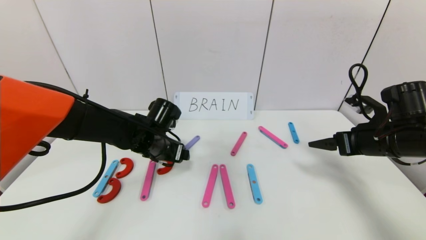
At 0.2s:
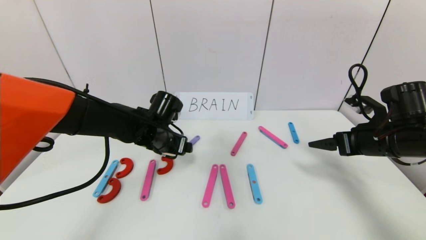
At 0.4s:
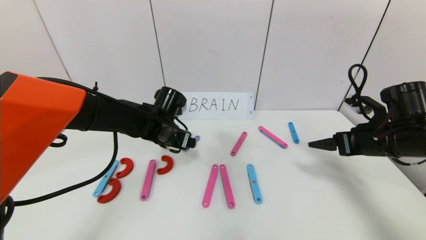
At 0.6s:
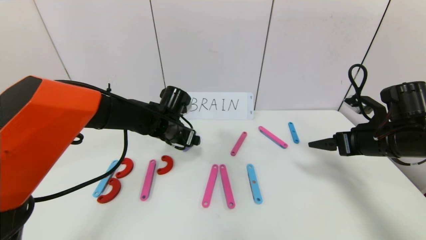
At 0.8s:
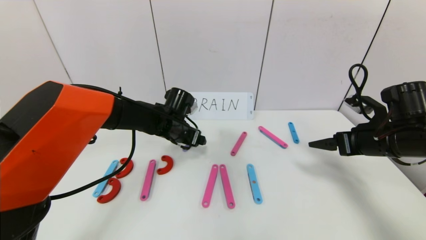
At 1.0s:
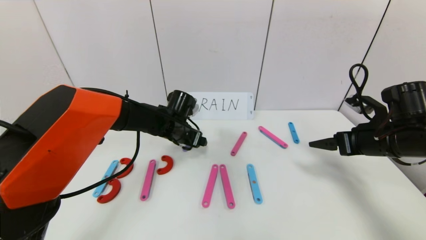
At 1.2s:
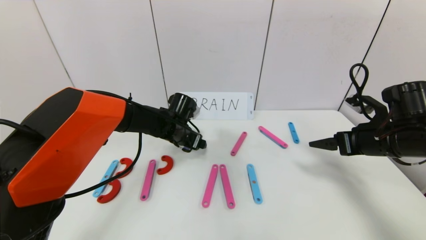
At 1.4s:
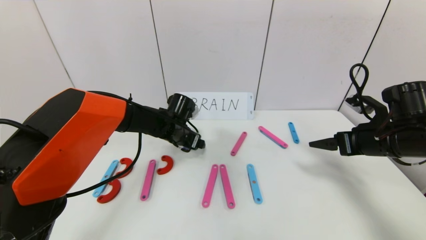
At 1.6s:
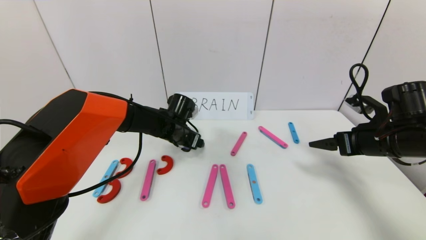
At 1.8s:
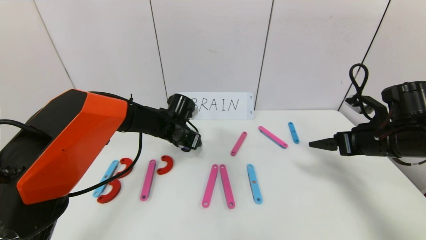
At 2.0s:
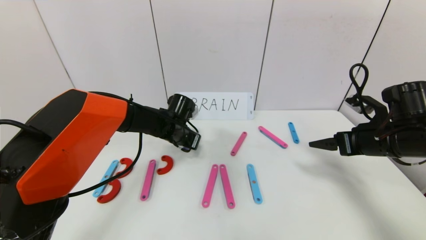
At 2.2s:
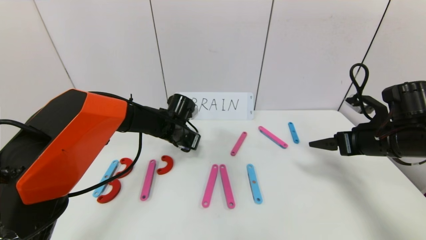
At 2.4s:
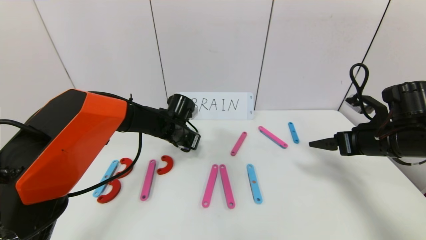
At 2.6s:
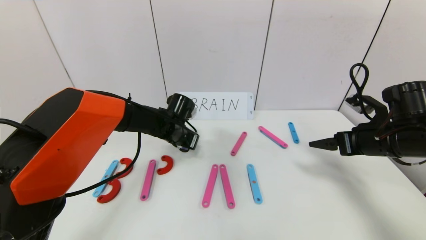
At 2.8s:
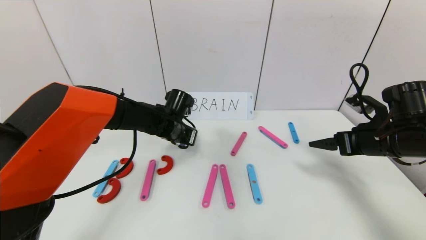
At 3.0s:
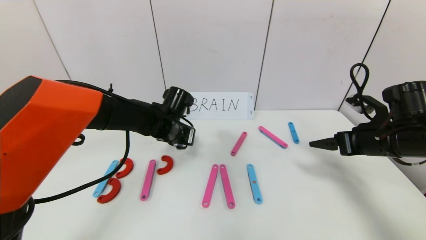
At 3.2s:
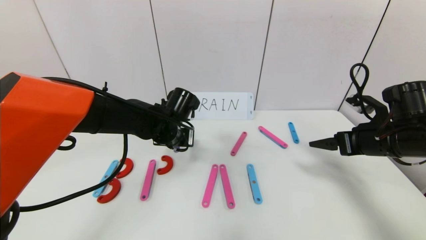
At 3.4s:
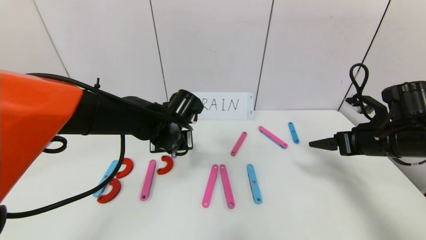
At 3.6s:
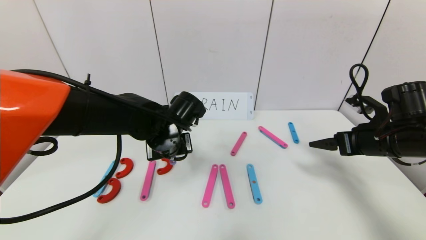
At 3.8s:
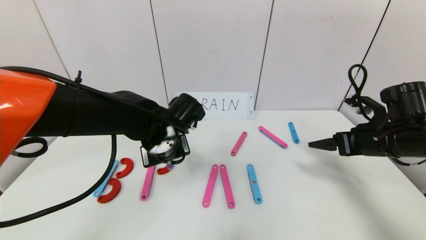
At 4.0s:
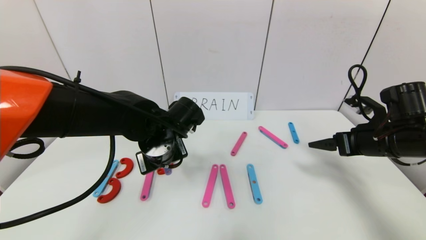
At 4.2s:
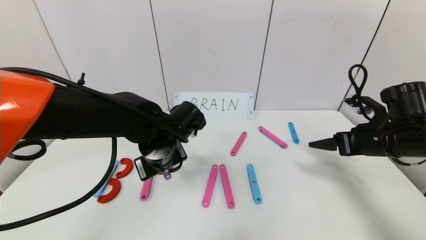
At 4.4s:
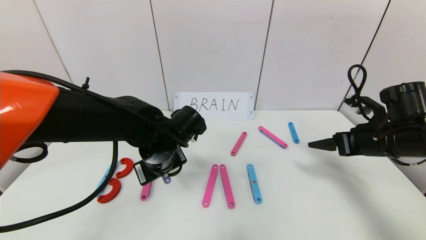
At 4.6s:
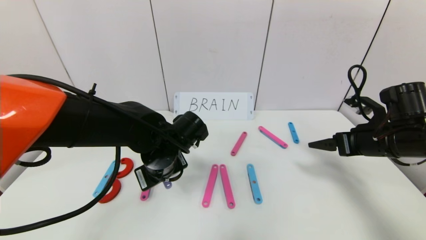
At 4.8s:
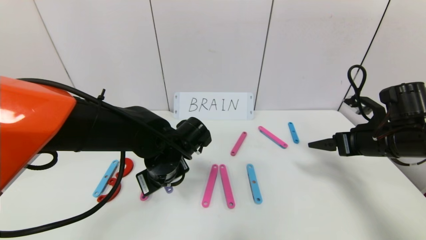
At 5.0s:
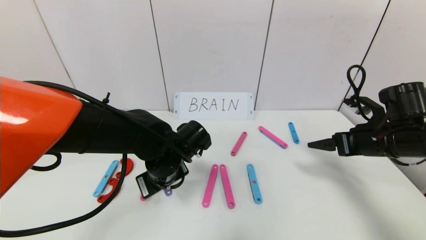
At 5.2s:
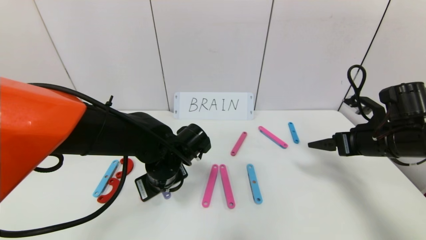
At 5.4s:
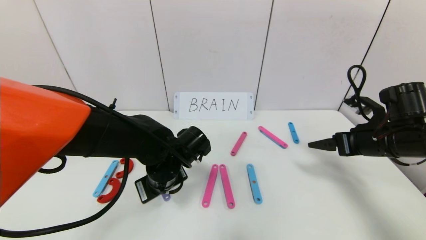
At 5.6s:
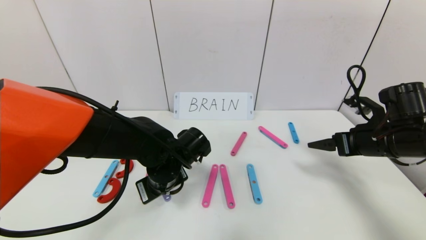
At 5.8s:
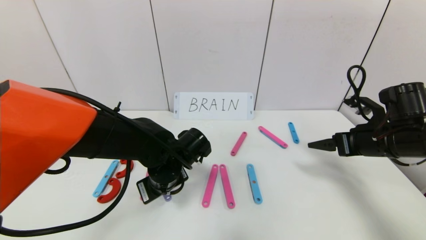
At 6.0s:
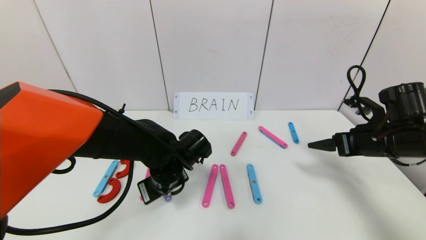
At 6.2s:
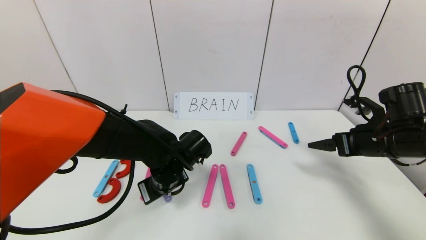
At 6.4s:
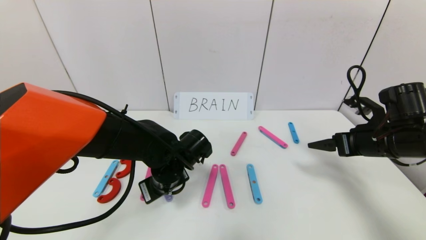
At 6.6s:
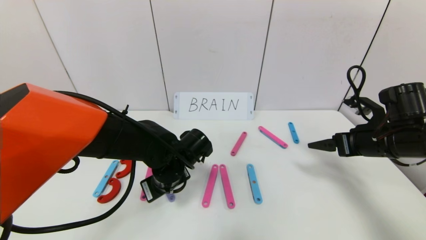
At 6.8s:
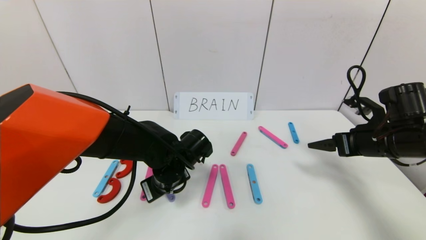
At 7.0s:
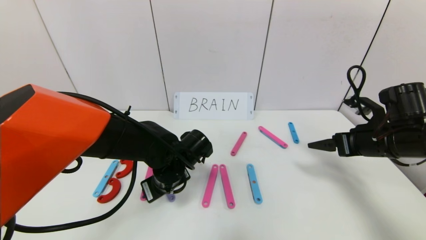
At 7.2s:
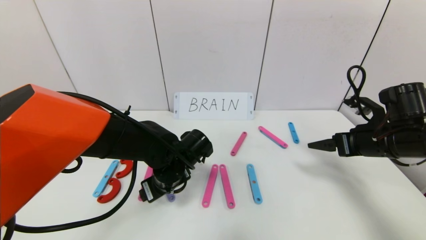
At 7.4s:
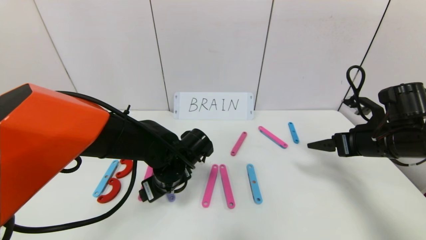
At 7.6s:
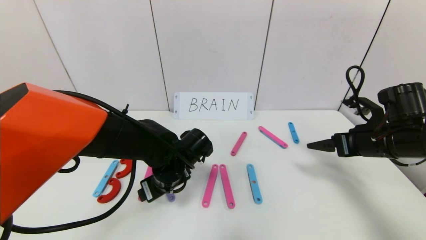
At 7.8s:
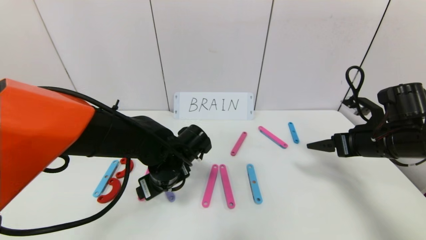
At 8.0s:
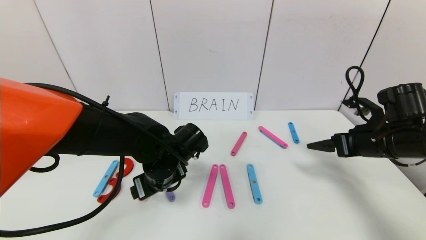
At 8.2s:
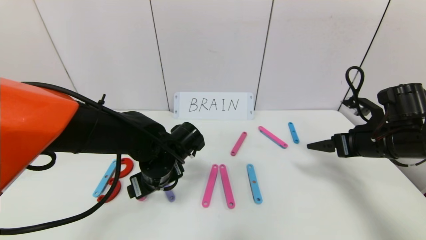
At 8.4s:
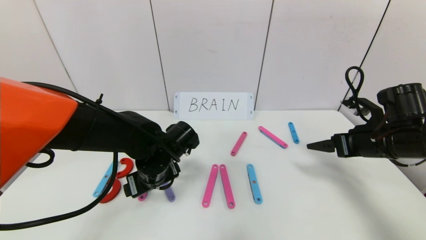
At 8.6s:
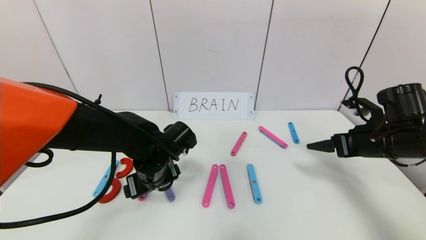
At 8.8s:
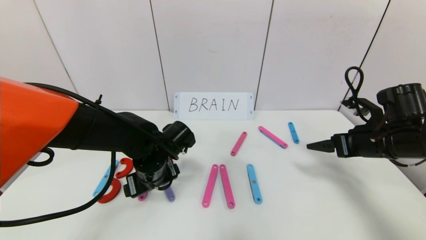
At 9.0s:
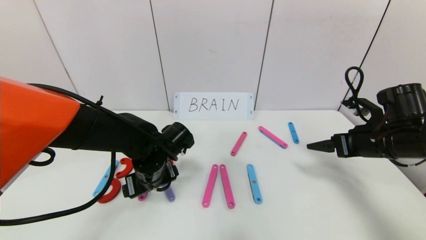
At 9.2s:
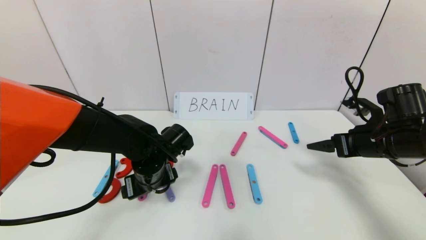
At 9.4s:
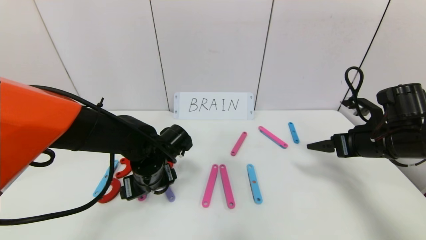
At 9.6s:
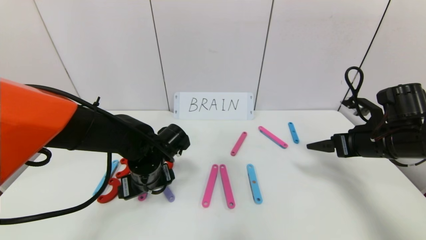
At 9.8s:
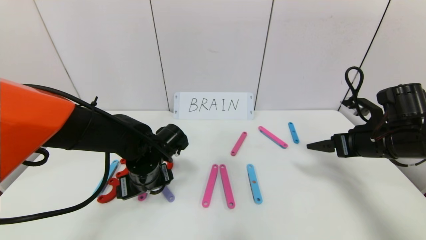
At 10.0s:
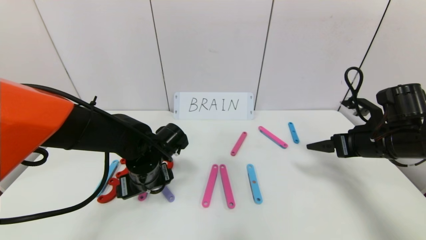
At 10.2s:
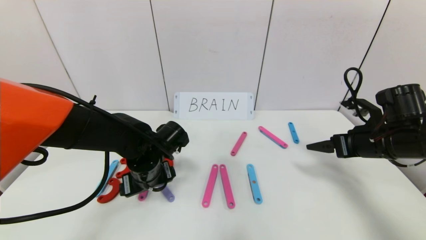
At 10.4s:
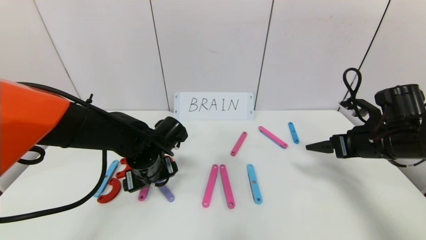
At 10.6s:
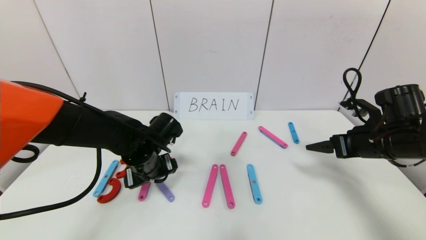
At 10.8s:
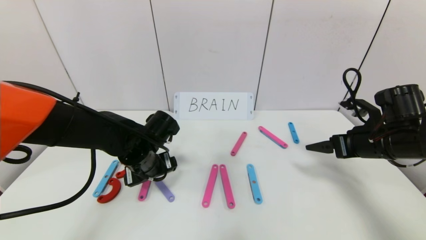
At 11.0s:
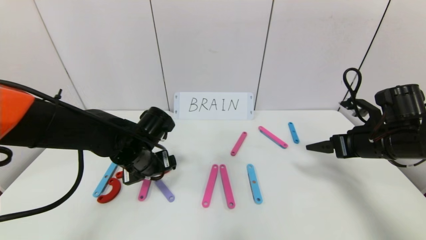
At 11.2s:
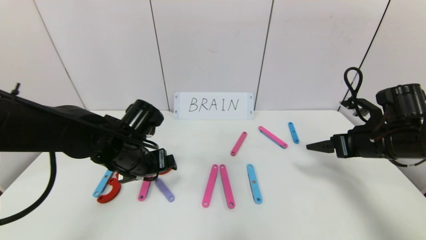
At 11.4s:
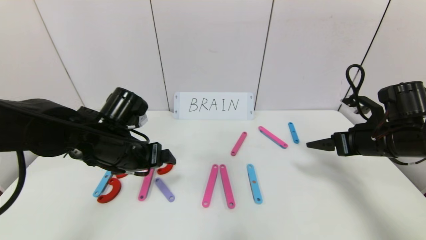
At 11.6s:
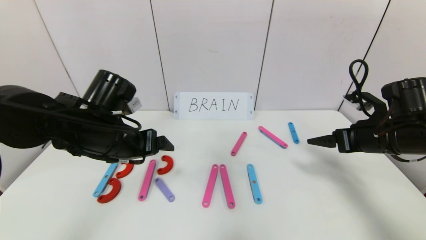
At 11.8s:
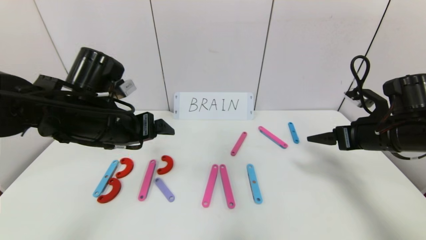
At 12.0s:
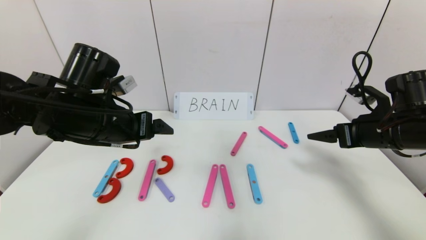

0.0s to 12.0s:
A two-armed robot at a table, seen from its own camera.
Task of the whole recording: rearrange the word baai as brain.
Step, 0.0s to 10.6s: Place the character R between first character B and third character A.
0.0s to 1.6s: The left gripper goes about 10 cm forward.
1.6s to 3.0s: The left gripper shifts by about 5 cm, and closes its fingers.
3.0s to 4.4s: The left gripper travels backward by approximately 10 cm.
4.4s to 6.0s: The grippers stay close to where they were, moving slightly.
6.0s to 7.6s: The left gripper opens its fingers.
7.6s to 9.0s: There are only small adjustments of the grippers.
9.0s to 10.4s: Neither gripper changes place.
10.4s to 12.0s: The left gripper goes some 15 cm upward and to the left.

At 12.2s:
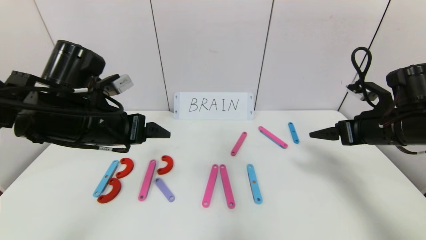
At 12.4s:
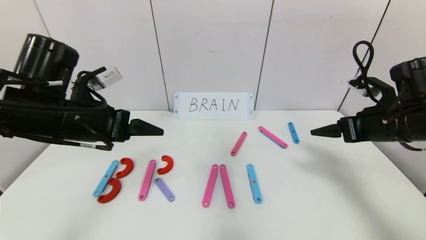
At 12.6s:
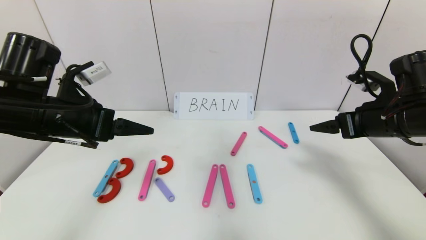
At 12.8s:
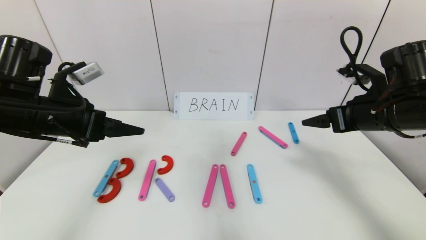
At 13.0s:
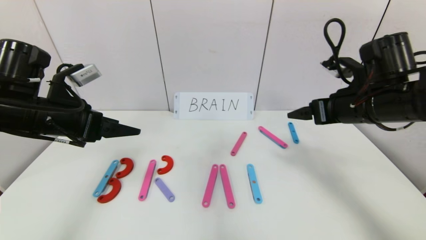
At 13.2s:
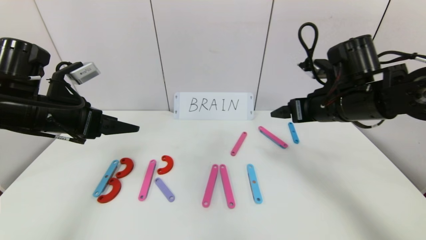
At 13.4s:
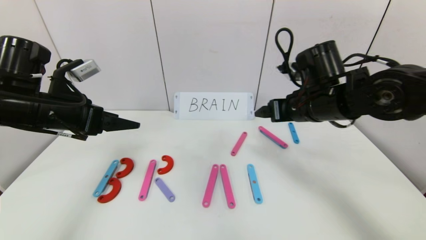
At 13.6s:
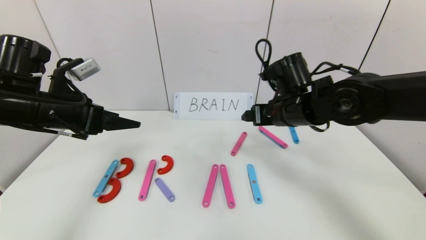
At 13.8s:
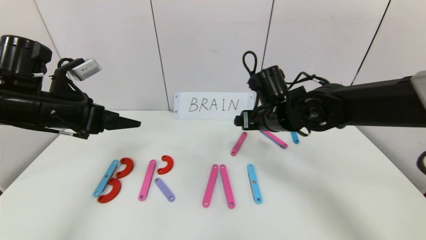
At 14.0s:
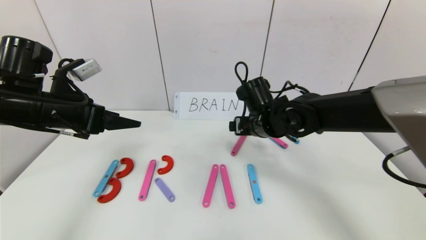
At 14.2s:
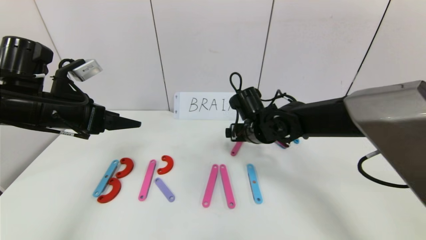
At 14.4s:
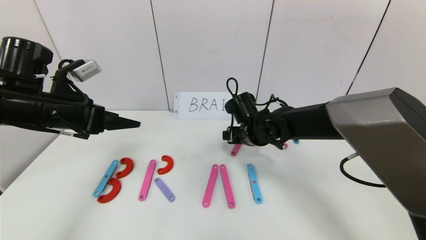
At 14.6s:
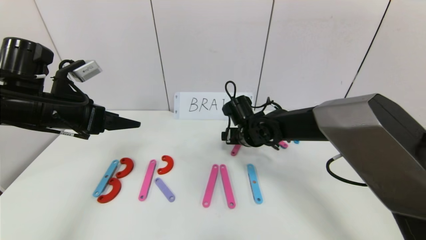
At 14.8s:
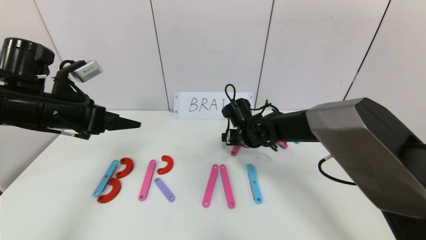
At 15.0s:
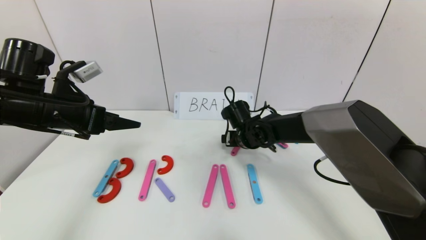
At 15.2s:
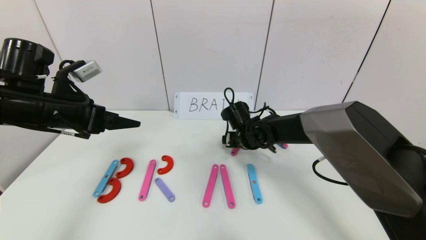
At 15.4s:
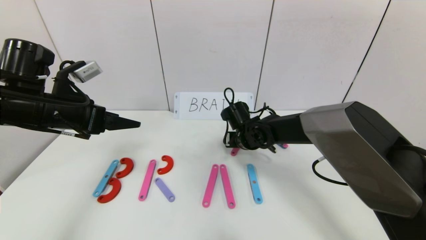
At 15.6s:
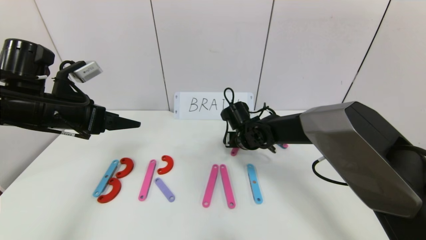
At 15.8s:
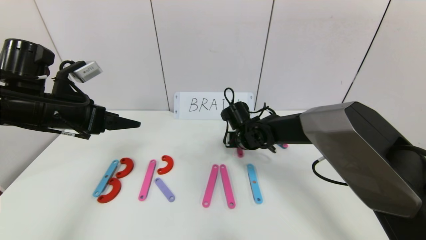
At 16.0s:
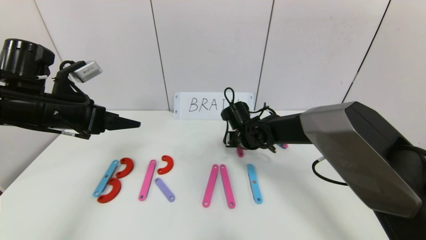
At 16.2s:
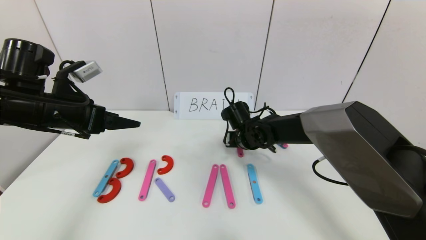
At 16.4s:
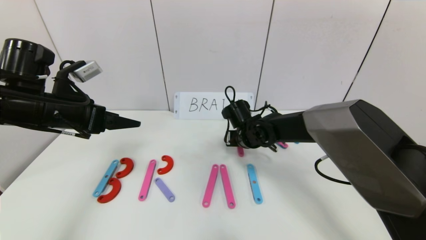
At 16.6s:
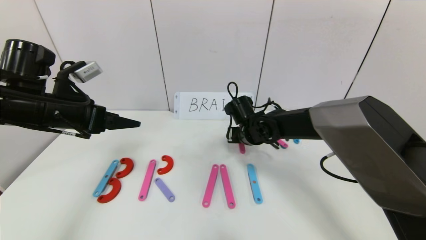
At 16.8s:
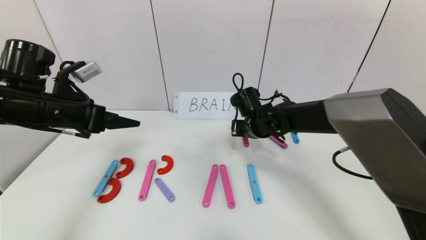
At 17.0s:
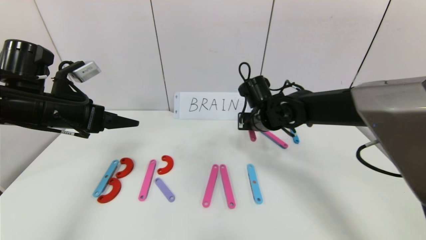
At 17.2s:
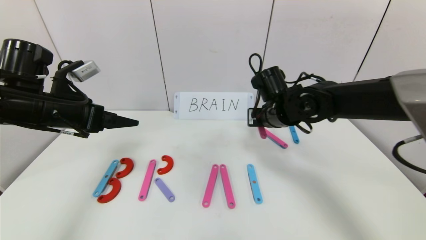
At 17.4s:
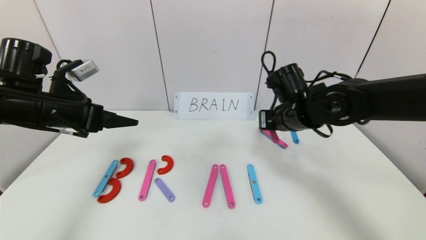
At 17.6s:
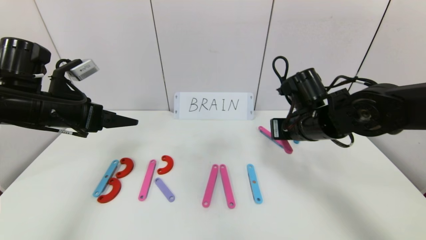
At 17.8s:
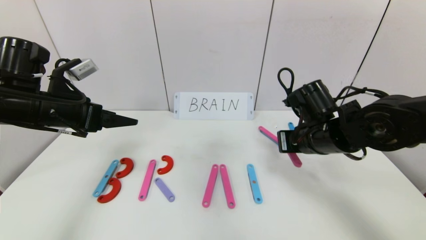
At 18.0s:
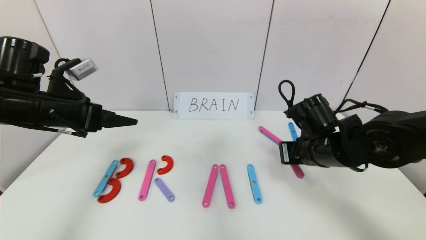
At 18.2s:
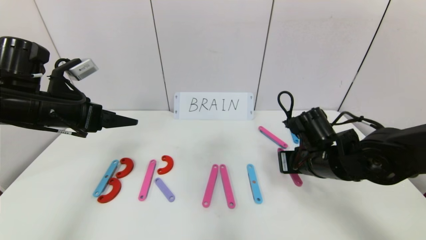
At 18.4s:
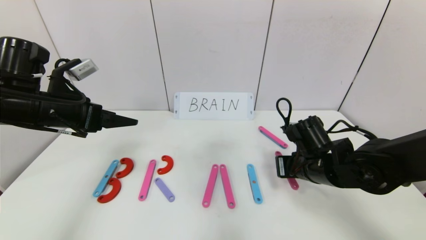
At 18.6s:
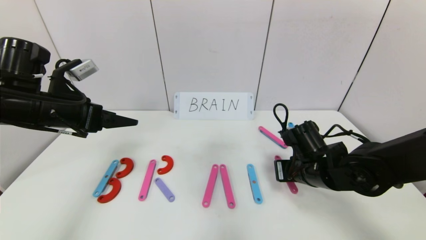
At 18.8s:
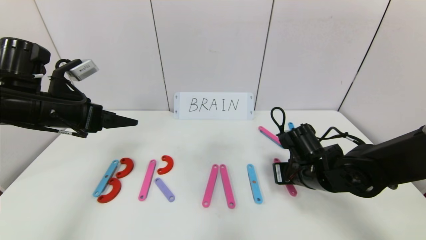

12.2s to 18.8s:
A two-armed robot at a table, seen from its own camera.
Task of the whole recording: rearrange the word baai as brain.
12.2s to 13.8s: The left gripper moves to the left, some 10 cm, while the right gripper heads to the left, covering some 20 cm.
13.8s to 15.4s: The right gripper is displaced downward and forward by approximately 10 cm.
15.4s to 17.2s: The right gripper is displaced upward and to the right by approximately 10 cm, and closes.
17.2s to 18.8s: The right gripper shifts about 15 cm backward, downward and to the right.
